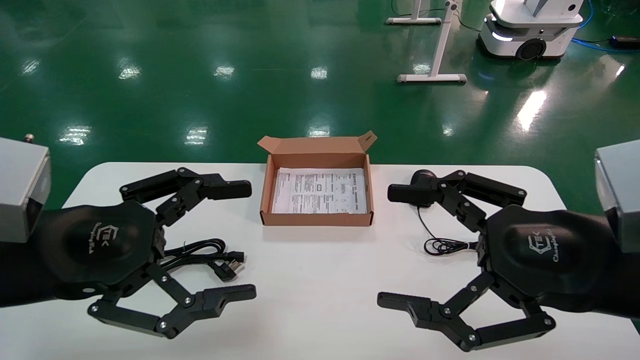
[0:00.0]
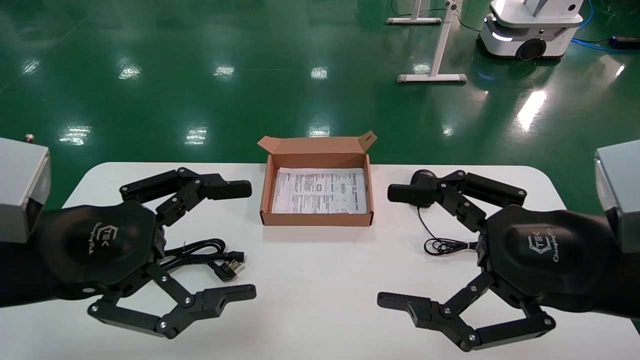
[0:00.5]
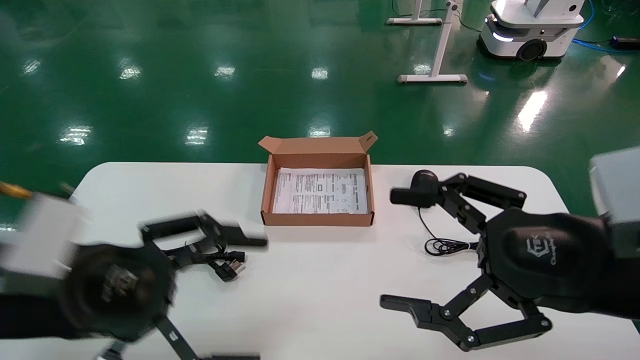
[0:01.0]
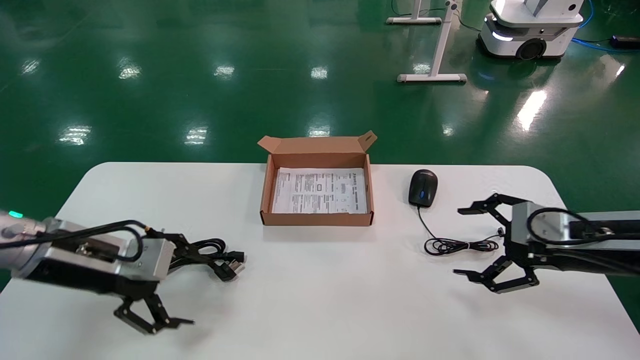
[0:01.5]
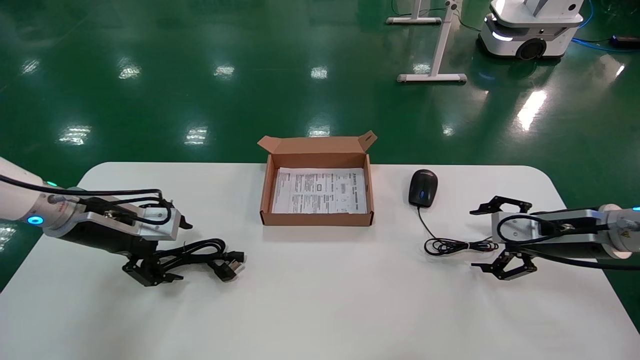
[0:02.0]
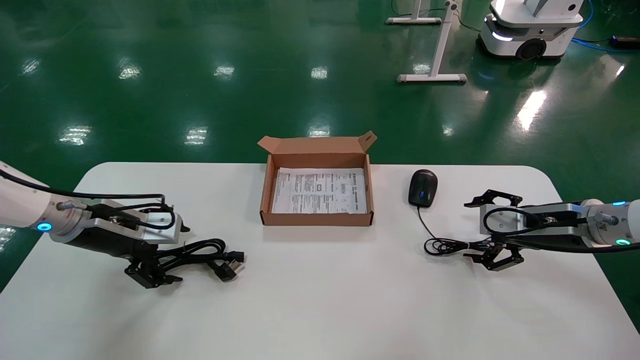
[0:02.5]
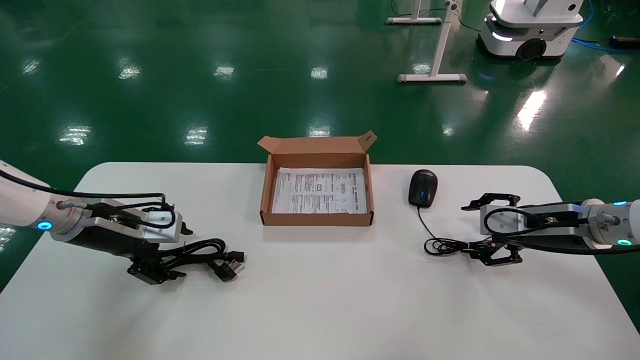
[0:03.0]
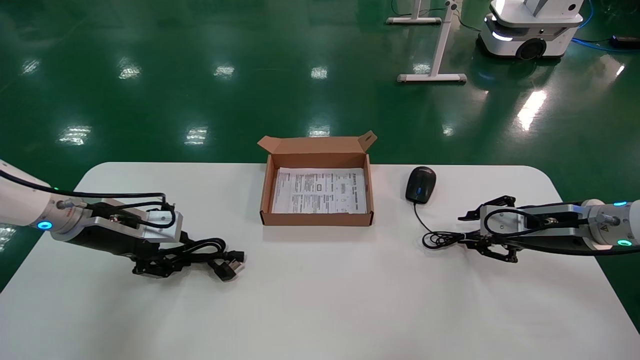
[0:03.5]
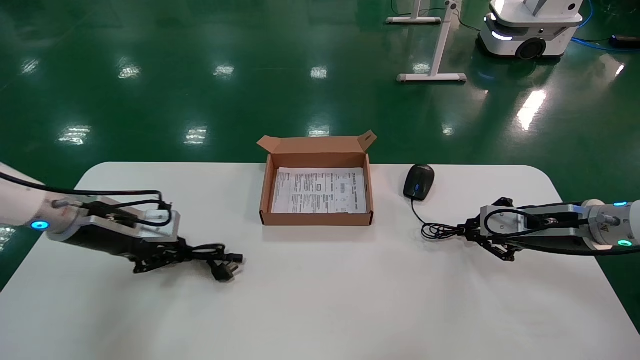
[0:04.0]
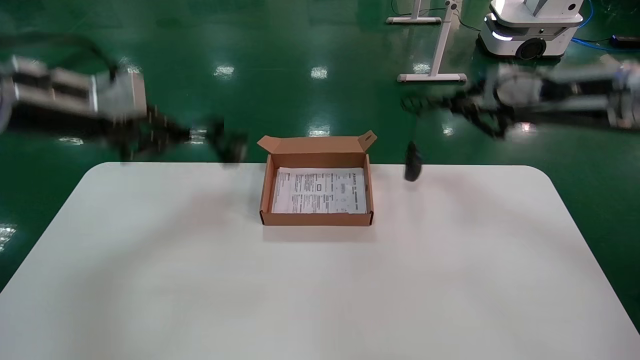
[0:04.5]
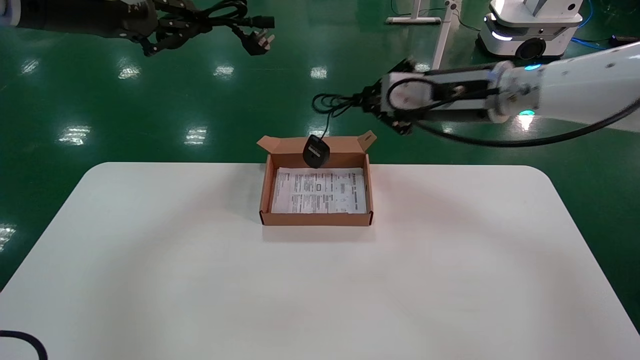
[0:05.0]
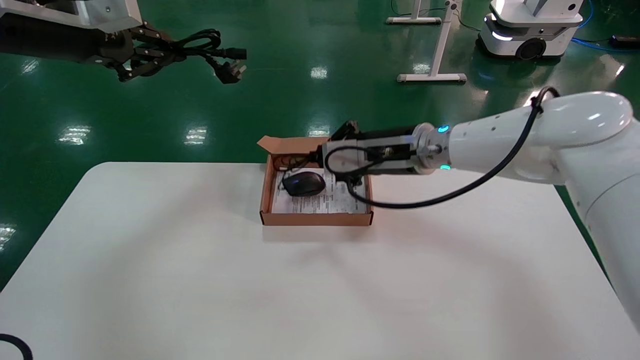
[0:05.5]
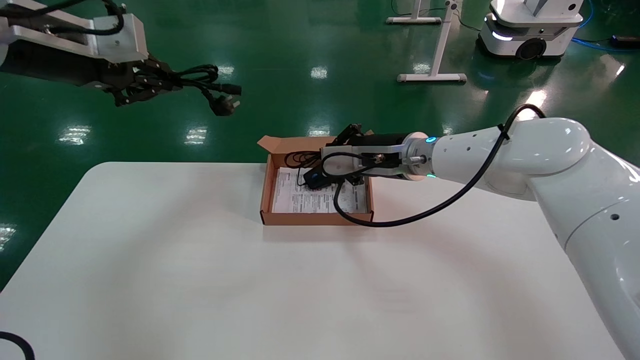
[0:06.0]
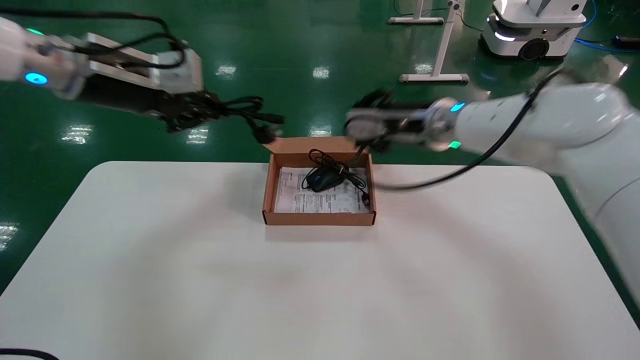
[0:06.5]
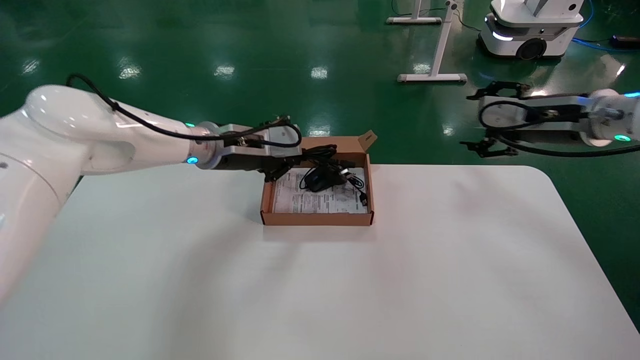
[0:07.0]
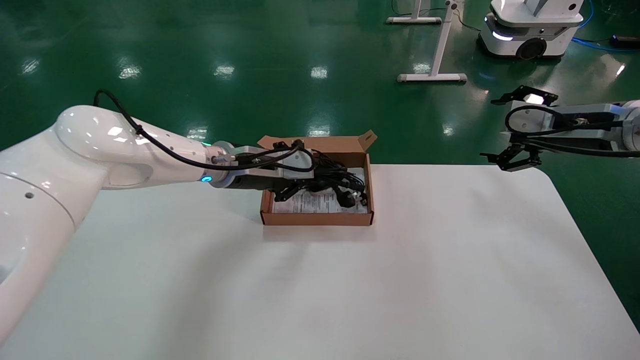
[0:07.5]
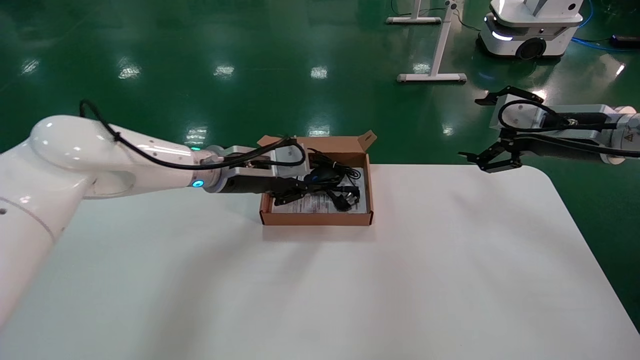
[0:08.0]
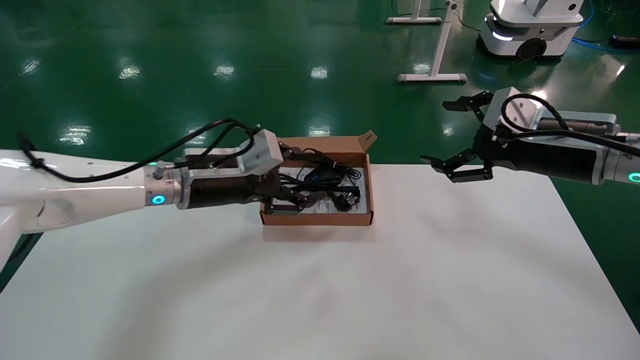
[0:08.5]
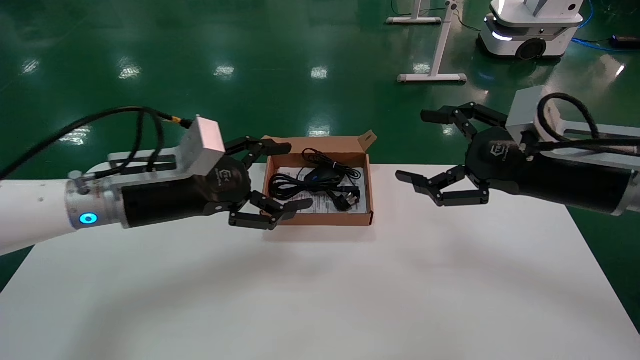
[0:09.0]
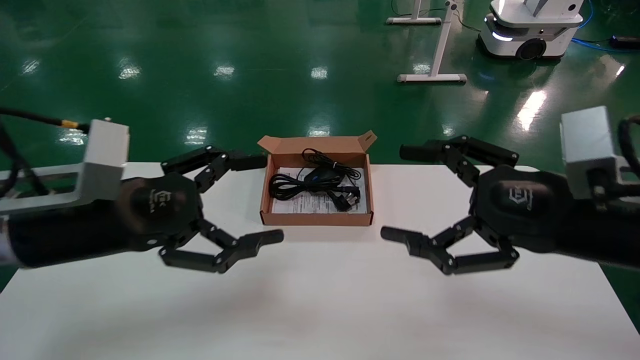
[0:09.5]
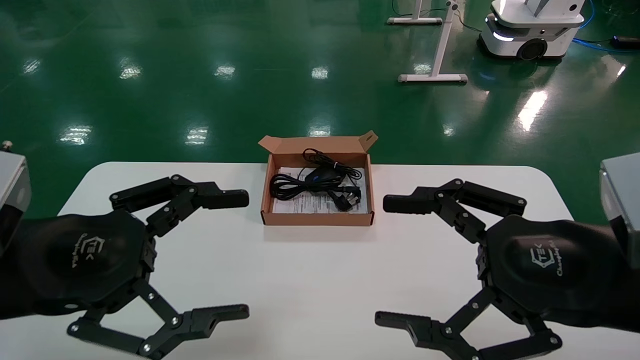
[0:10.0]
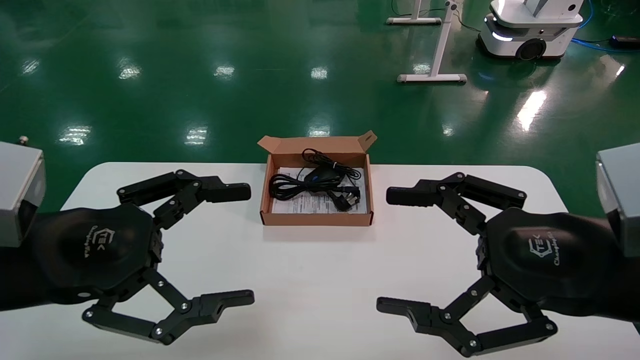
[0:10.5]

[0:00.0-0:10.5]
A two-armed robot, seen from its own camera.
Step, 0:01.5 to 0:04.0: Grab and lift both the mouse and power cord from the accessory packaging area at the same time.
Step, 0:04.5 to 0:08.5: Place the mouse and power cord into the box.
0:00.0 to 0:02.0: The left gripper moves forward, roughly 20 cm; the right gripper goes approximately 25 cm forward, to the right and downward.
0:02.0 to 0:04.0: The left gripper closes, while the right gripper closes its fingers.
0:04.0 to 0:06.5: The right gripper travels to the left, upward and forward by about 25 cm. Meanwhile the left gripper is displaced upward and to the right by approximately 20 cm.
0:06.5 to 0:08.5: The left gripper travels downward and to the right by some 15 cm, and opens. The right gripper moves to the right and backward, some 15 cm, and opens.
0:08.5 to 0:10.5: Both grippers travel together backward, some 20 cm. The left gripper opens its fingers.

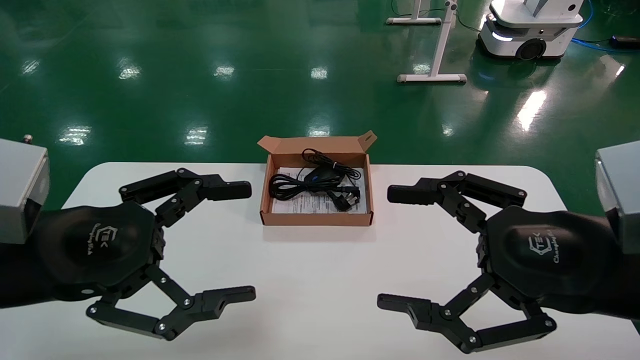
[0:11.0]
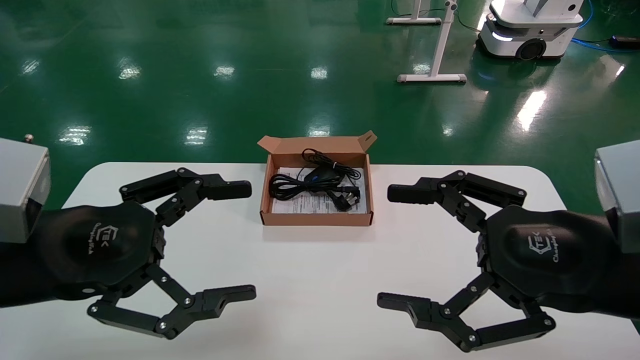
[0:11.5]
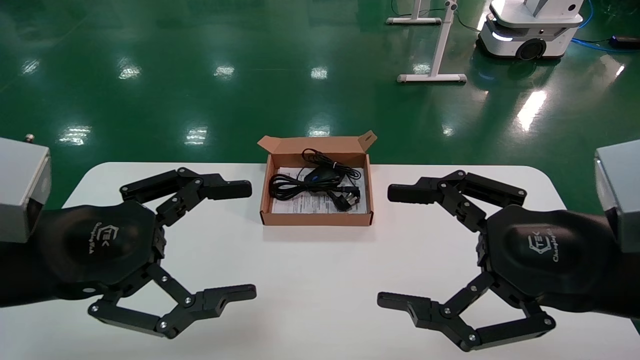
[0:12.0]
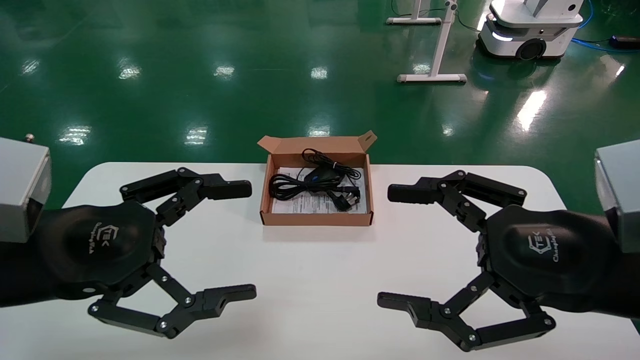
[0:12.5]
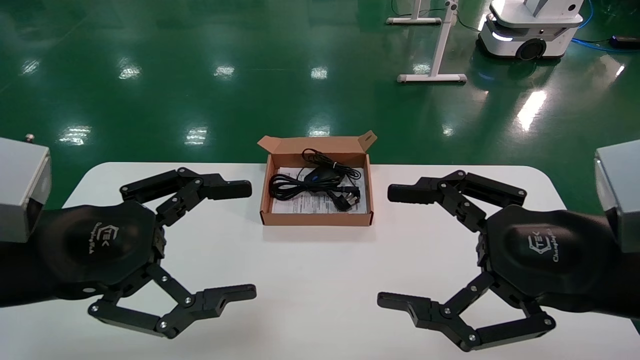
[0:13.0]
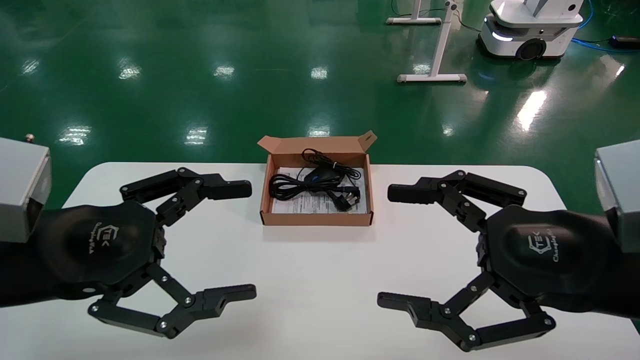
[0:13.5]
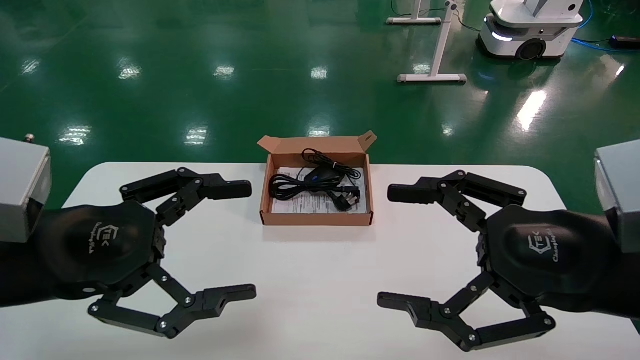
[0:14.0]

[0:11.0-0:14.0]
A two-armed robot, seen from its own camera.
0:11.0 to 0:14.0: Both grippers stay about where they are.
